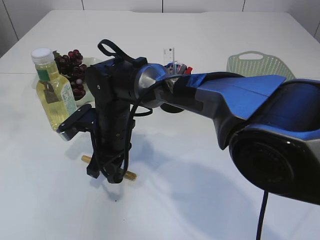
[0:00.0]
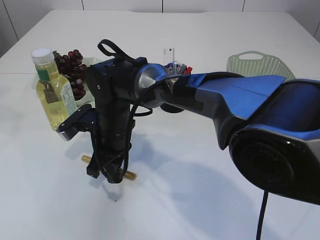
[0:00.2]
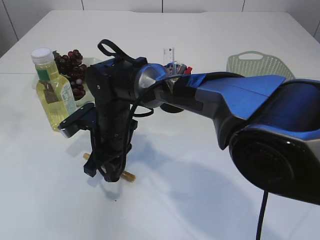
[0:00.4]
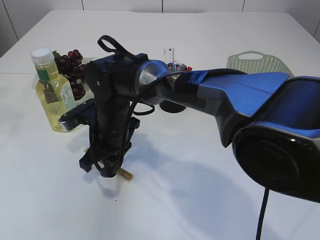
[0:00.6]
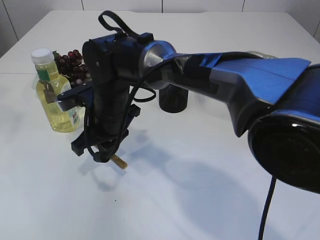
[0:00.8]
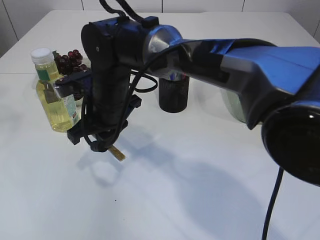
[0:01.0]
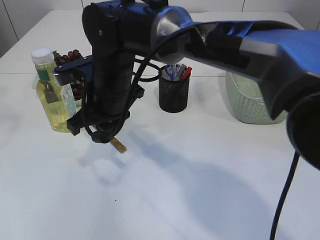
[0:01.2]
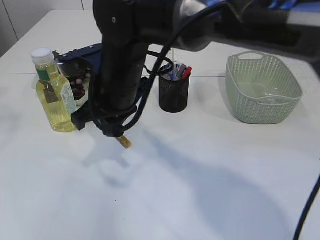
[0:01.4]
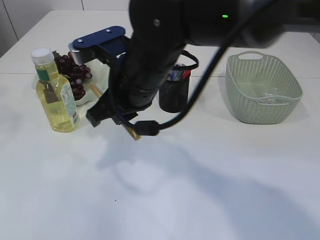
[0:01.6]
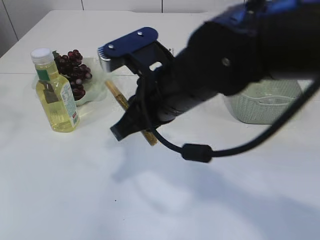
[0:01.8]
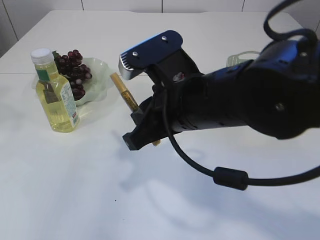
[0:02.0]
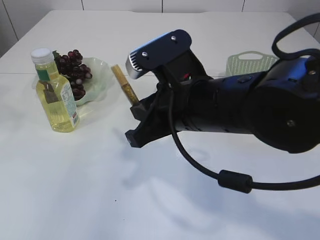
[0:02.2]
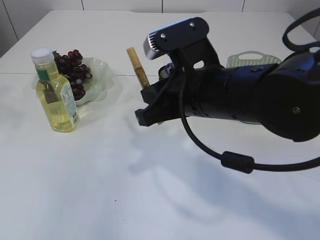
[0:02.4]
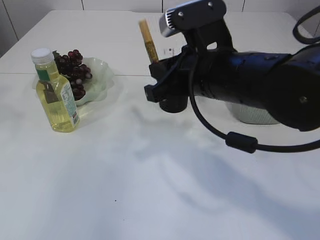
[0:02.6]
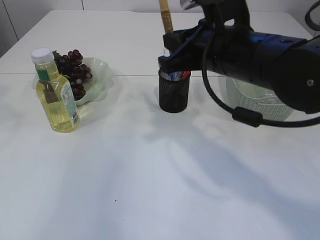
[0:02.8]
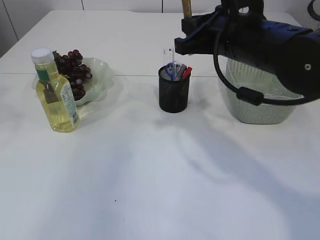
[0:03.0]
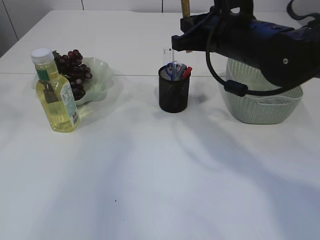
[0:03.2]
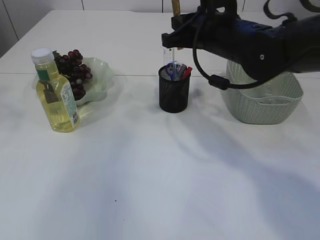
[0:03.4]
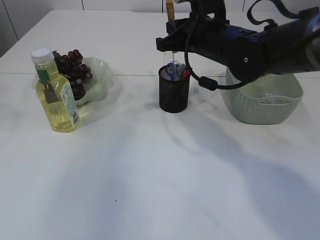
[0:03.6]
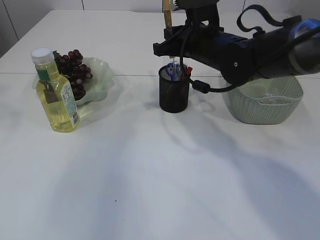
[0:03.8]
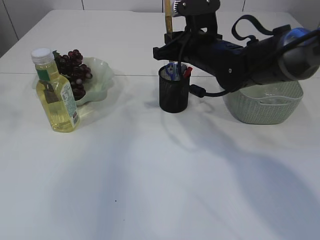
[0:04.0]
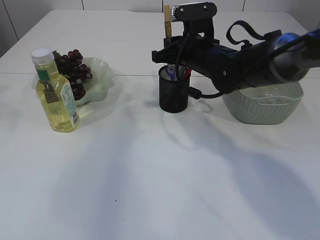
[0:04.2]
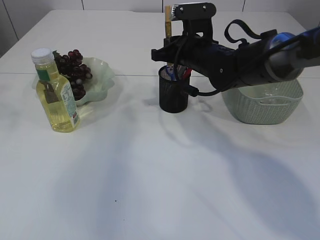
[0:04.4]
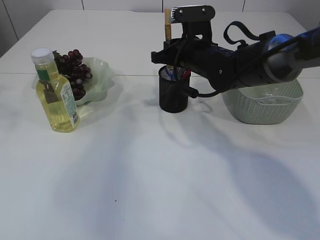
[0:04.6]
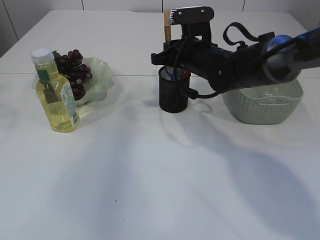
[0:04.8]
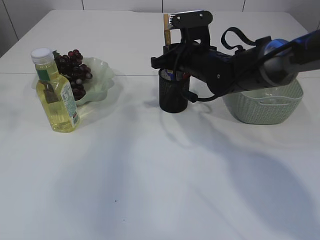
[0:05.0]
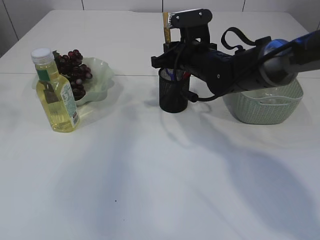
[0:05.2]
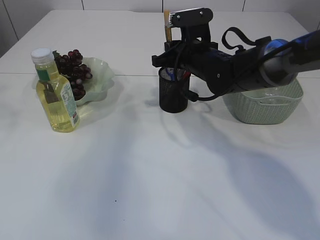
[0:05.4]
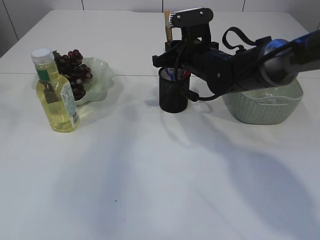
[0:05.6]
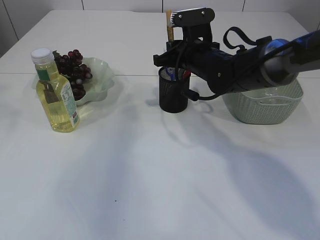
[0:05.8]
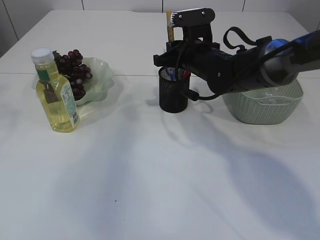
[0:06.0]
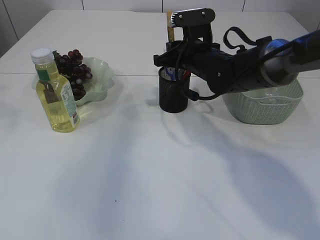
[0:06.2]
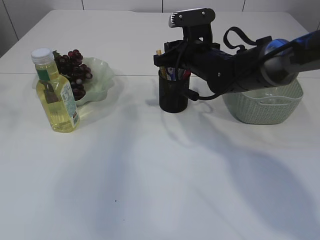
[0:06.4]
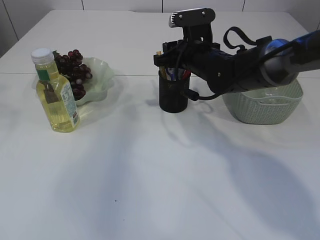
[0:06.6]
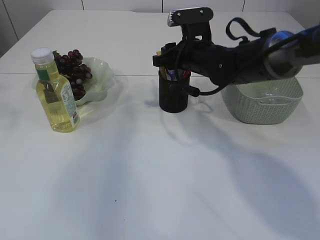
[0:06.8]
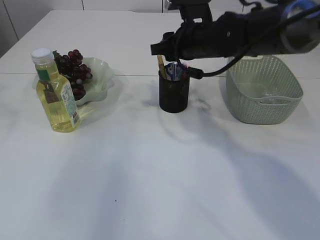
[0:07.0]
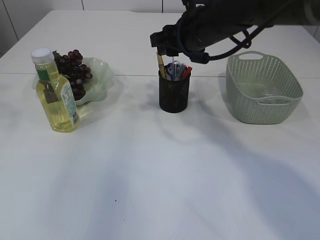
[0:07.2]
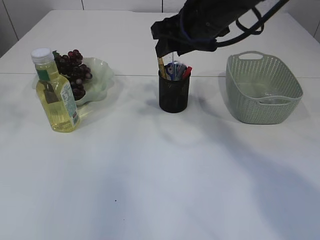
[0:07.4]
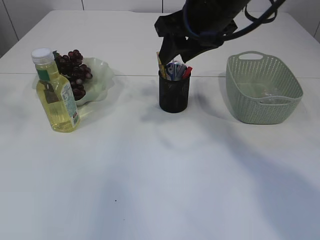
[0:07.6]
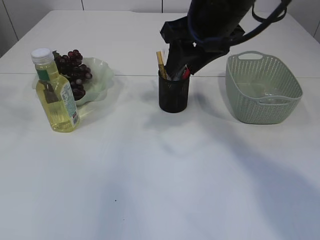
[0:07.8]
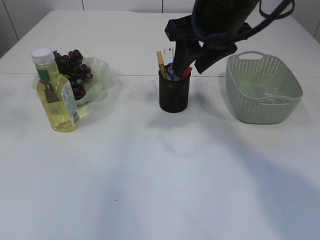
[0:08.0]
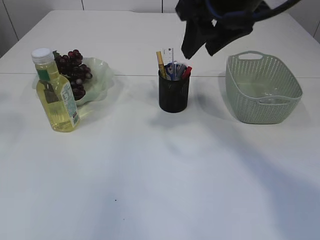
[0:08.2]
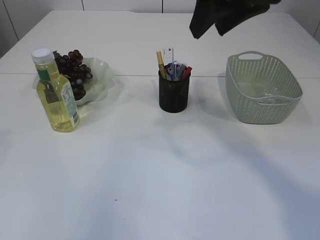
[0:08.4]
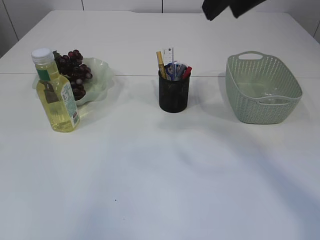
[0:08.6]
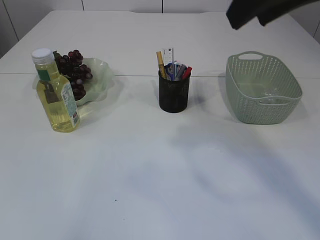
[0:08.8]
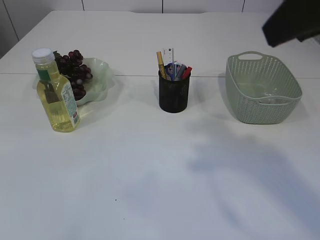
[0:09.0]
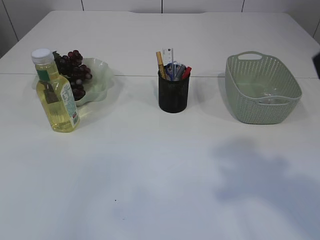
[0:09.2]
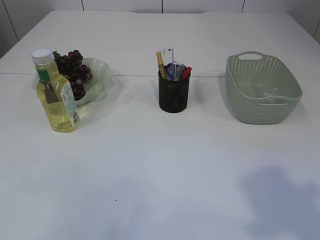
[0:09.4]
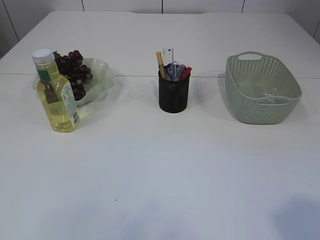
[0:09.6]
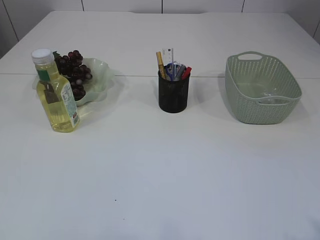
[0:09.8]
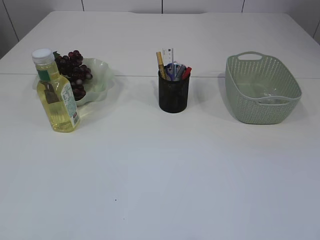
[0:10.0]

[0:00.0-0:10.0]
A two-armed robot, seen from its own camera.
Step, 0:02.0 to 0:08.2: place the yellow glue into the pen holder.
0:00.0 to 0:01.4: The right gripper is displaced upward by roughly 10 cm.
0:01.4 to 0:02.8: The right gripper heads to the right, covering some 15 cm.
0:02.8 to 0:04.2: The right gripper is displaced forward and downward by roughly 15 cm.
0:04.2 to 0:05.8: The grippers make only small movements.
0:05.8 to 0:07.2: The right gripper moves upward, roughly 10 cm, and opens its fingers.
0:07.2 to 0:08.6: The left gripper moves backward, about 10 cm; the right gripper travels upward and backward by about 20 cm.
0:08.6 to 0:10.0: The right gripper shifts roughly 35 cm backward and to the right.
